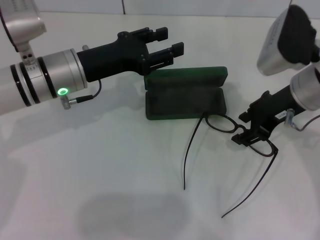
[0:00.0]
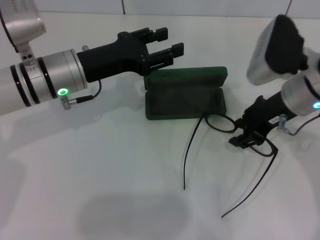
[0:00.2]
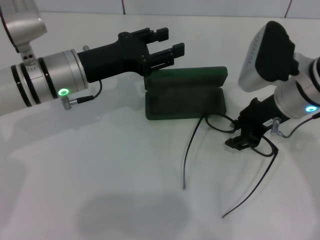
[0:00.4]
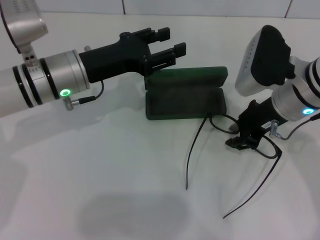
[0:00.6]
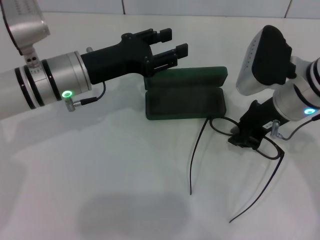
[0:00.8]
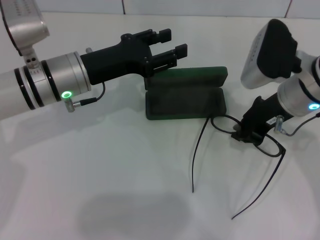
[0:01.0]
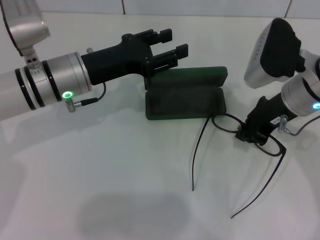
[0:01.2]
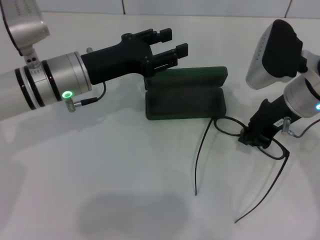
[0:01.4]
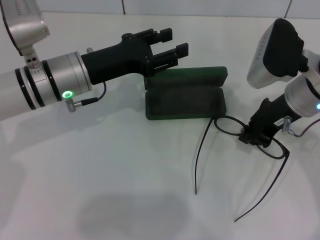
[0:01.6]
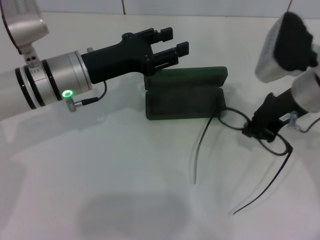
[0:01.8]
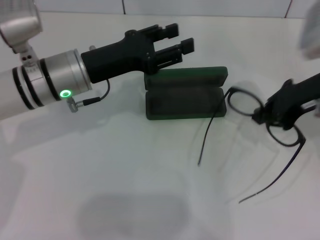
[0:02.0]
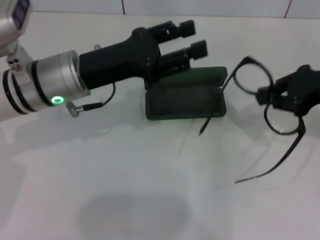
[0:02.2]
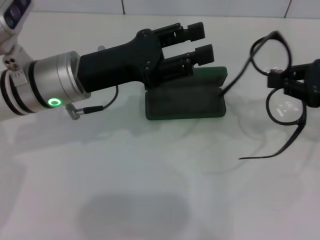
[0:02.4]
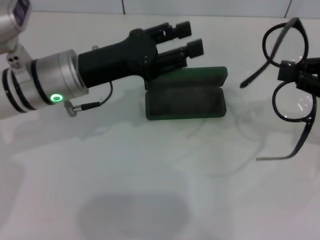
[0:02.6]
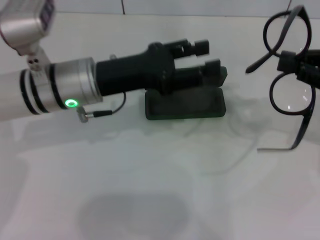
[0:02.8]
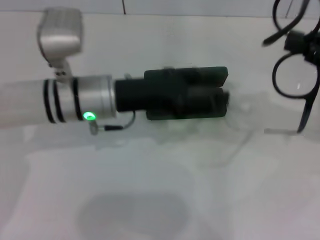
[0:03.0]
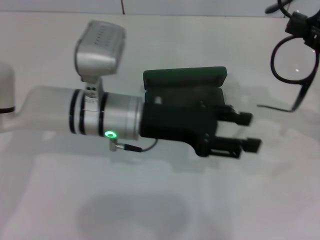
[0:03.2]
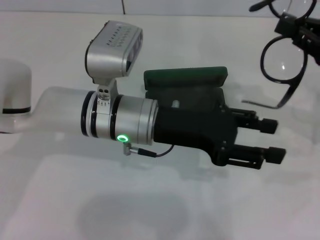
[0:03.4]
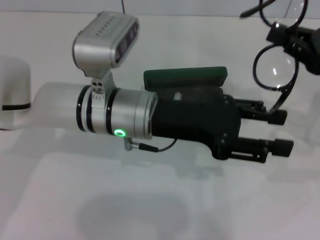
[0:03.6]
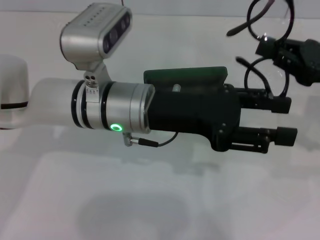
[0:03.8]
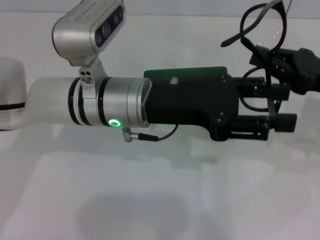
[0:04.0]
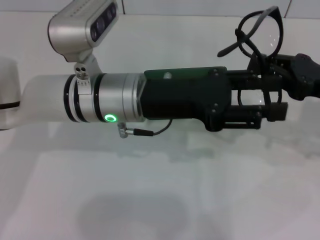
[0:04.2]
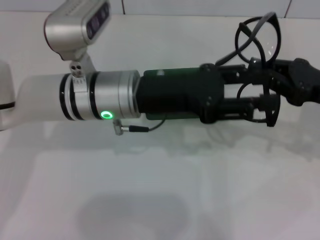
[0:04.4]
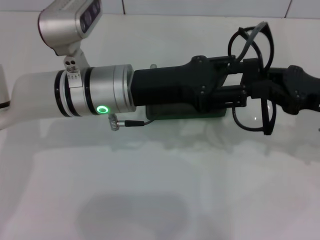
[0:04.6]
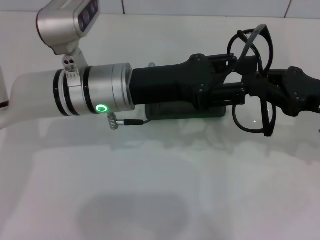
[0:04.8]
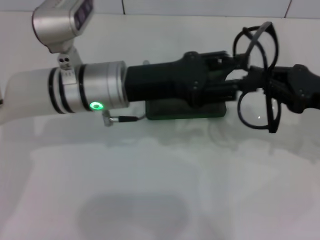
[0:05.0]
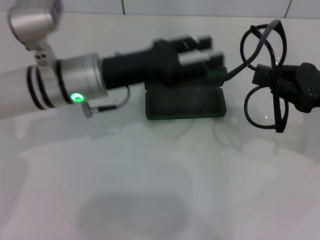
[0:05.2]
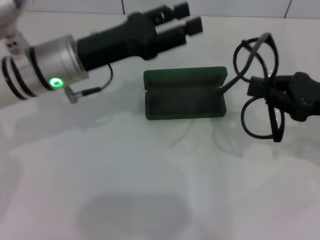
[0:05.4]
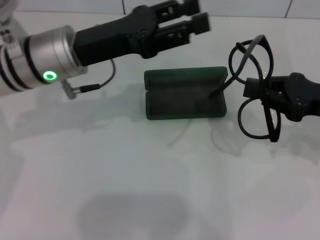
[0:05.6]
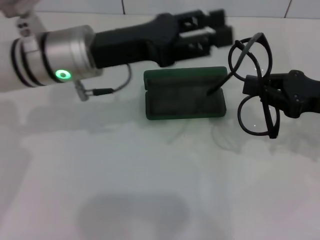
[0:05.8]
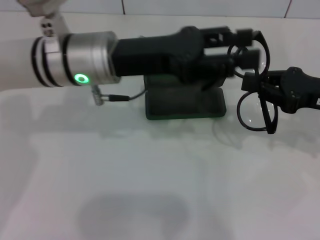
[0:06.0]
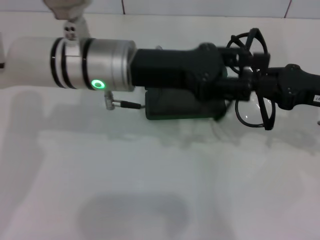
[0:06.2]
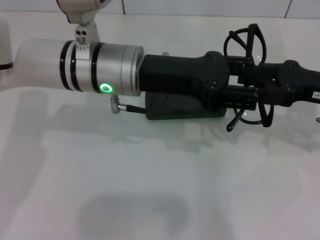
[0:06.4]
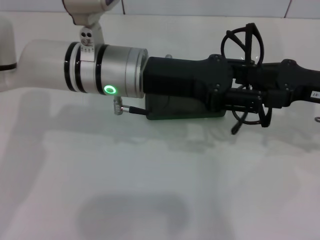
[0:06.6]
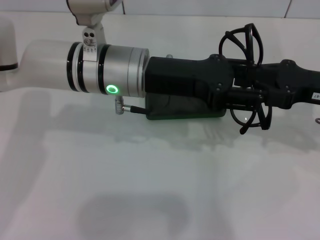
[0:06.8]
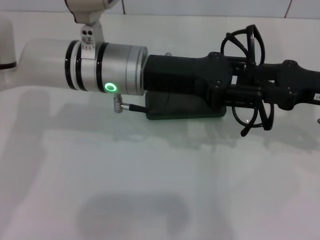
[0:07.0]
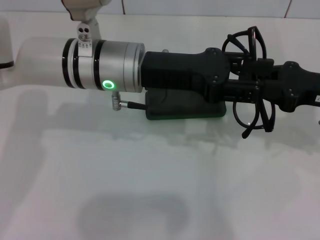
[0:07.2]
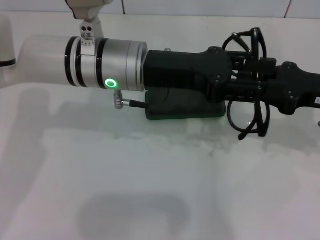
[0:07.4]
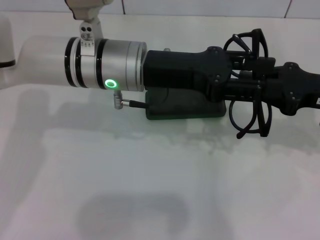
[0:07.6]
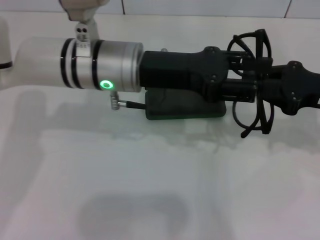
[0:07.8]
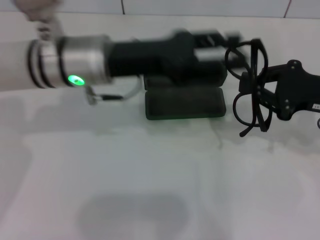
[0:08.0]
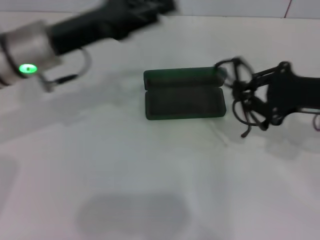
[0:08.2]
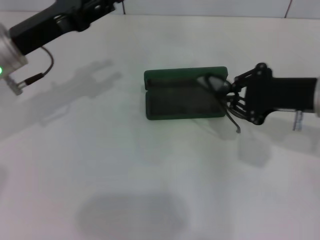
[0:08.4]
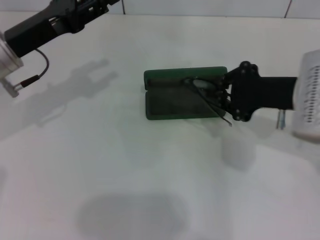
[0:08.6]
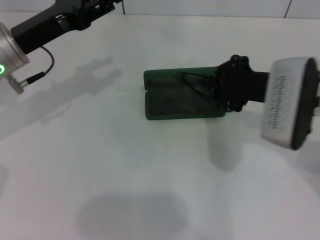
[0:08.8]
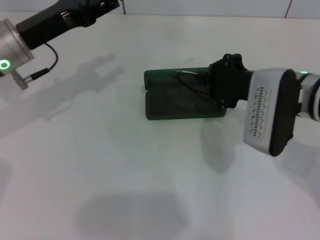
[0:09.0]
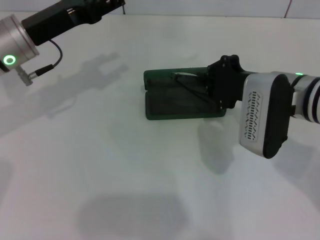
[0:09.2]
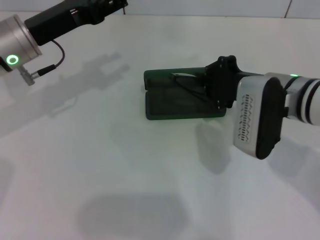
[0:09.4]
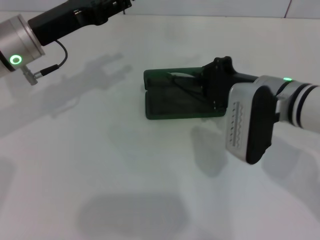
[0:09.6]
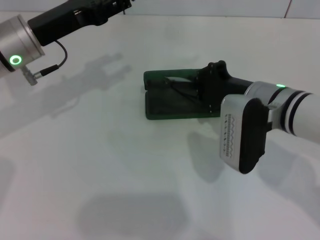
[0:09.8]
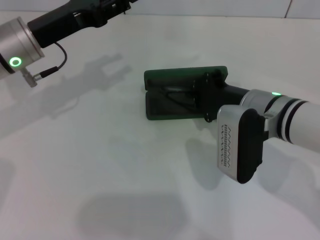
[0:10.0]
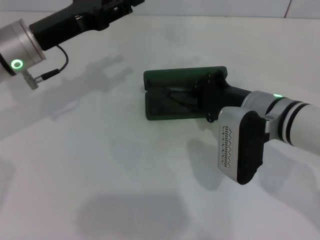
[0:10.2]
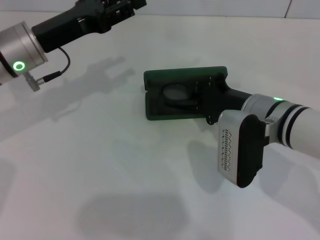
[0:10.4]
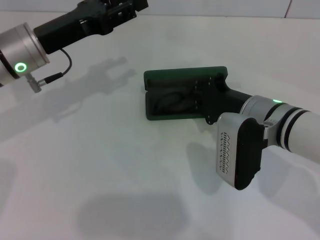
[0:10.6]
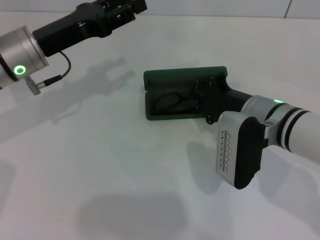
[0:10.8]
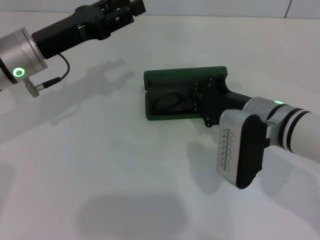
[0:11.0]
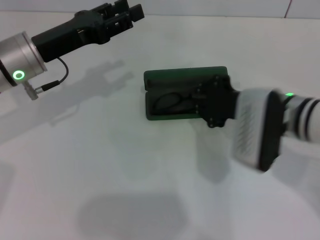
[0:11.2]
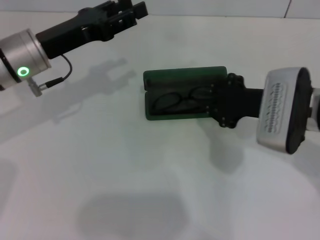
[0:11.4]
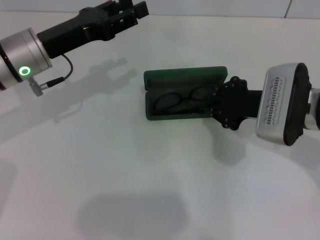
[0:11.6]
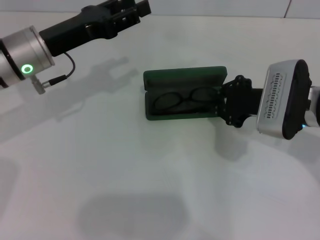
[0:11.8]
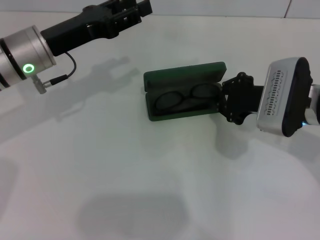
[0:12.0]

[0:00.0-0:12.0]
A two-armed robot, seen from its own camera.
Step, 1.0 to 7.4 s: Fold the frame with your left hand.
Step, 7.6 to 10.4 s: Put the glasses into the case with your right hand.
0.0 to 1.6 s: The right gripper closes up.
1.6 to 3.0 s: The right gripper goes roughly 15 cm to the right.
3.0 to 4.4 s: The right gripper shifts by about 5 cm.
6.0 to 7.6 s: There are only small adjustments of the grippers.
7.6 to 9.0 s: The two grippers go some 15 cm to the left.
9.0 to 10.4 s: The grippers make only small movements.
10.4 to 12.0 s: The right gripper heads to the right, covering about 5 cm.

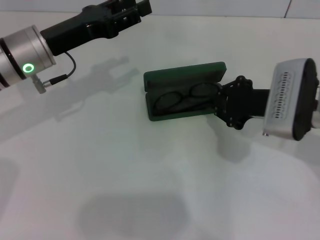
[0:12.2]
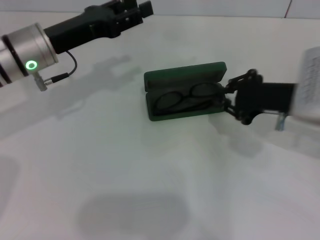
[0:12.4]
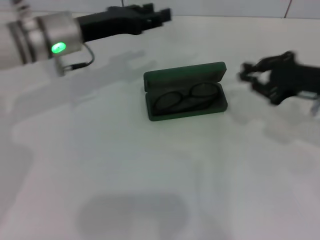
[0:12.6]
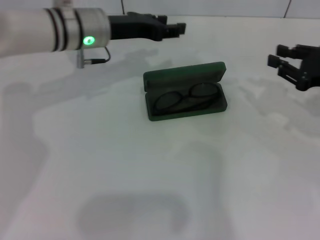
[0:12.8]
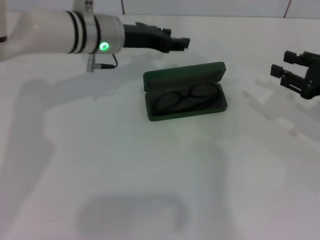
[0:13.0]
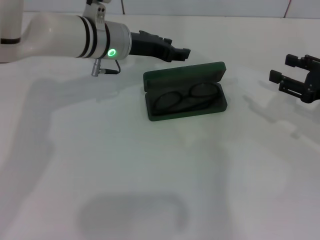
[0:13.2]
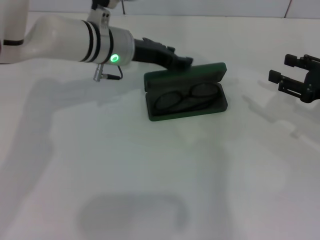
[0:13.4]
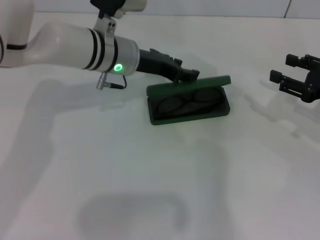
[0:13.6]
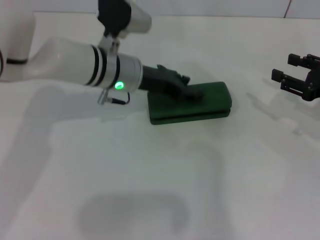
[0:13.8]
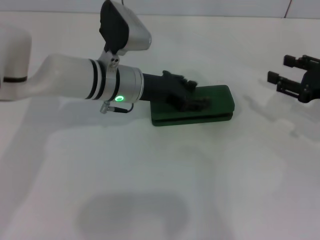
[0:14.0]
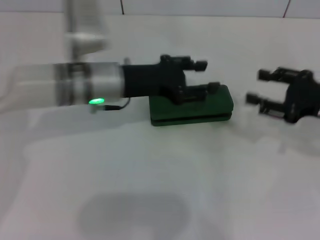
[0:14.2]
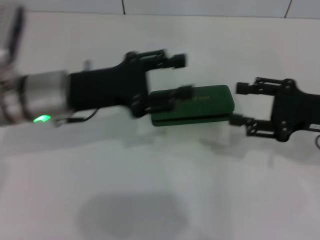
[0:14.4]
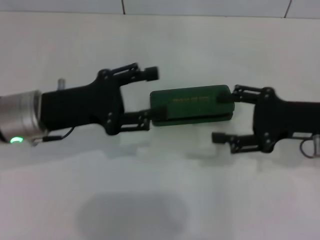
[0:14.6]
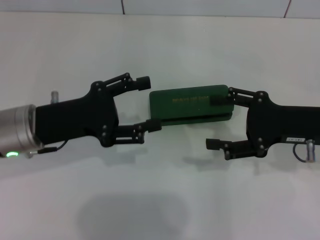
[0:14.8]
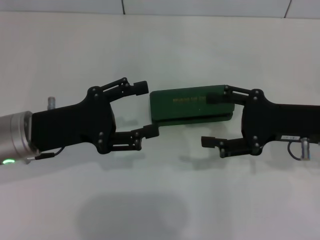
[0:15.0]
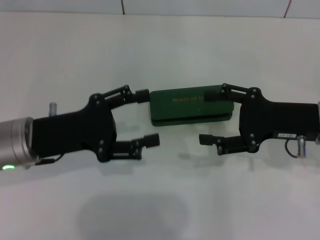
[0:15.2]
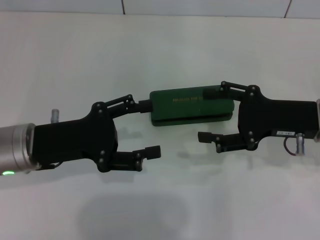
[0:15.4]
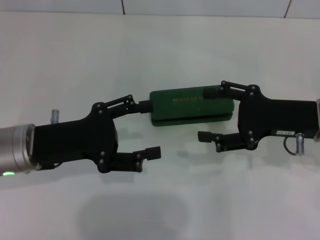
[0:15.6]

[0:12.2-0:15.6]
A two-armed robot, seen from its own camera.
Step, 12.2 to 13.8 s: Close the glasses case with your left hand.
12.2 to 13.8 s: The two grippers go roughly 10 cm to the right. The right gripper opens up.
13.8 to 15.6 s: The left gripper goes about 20 cm backward and to the left, and opens its fingers. Meanwhile the right gripper moves to the left, some 10 cm.

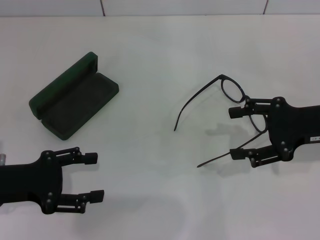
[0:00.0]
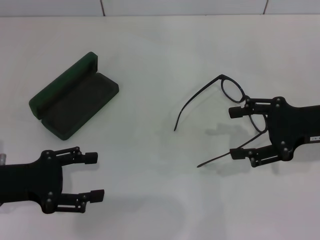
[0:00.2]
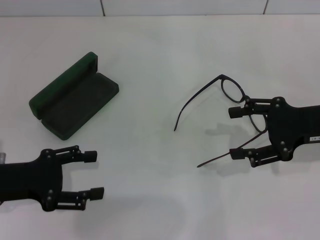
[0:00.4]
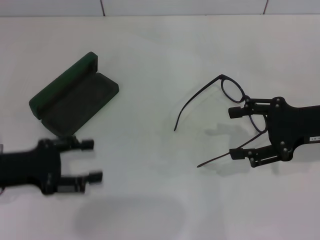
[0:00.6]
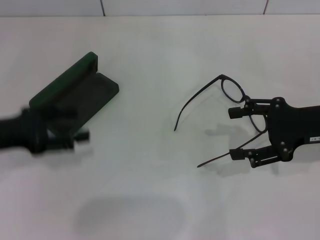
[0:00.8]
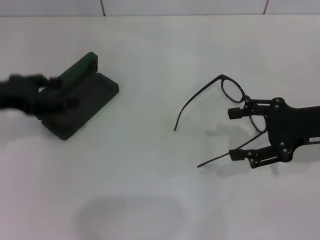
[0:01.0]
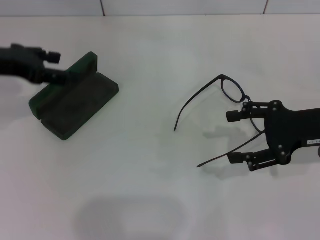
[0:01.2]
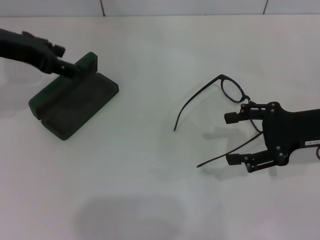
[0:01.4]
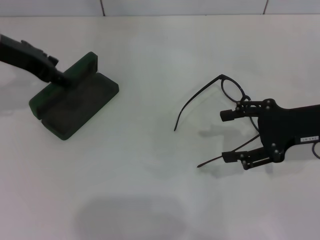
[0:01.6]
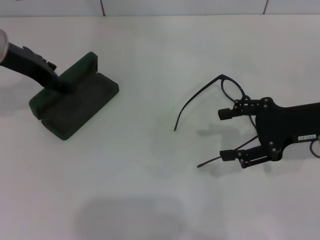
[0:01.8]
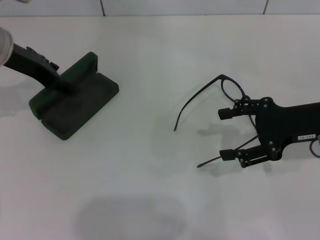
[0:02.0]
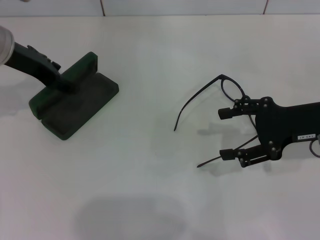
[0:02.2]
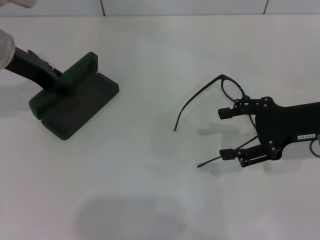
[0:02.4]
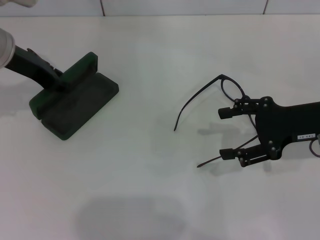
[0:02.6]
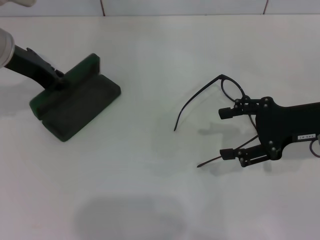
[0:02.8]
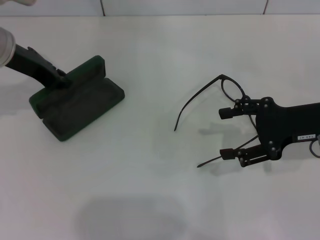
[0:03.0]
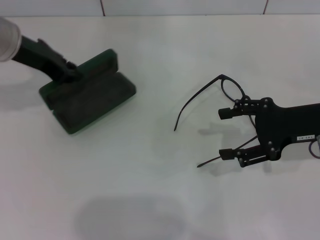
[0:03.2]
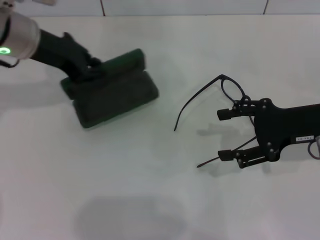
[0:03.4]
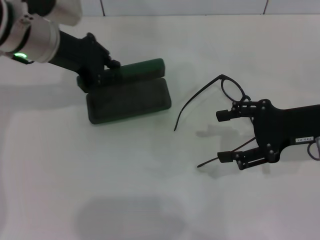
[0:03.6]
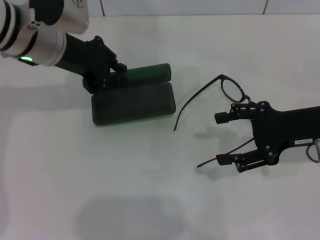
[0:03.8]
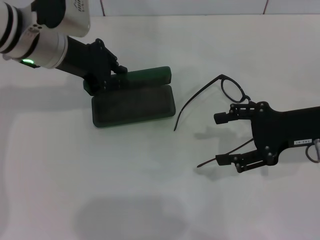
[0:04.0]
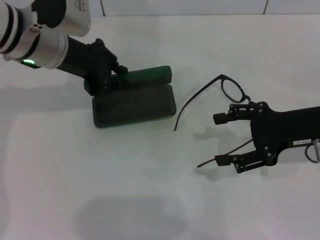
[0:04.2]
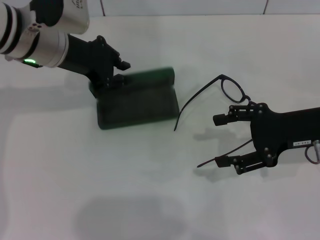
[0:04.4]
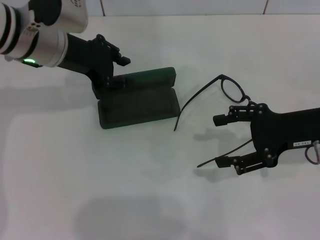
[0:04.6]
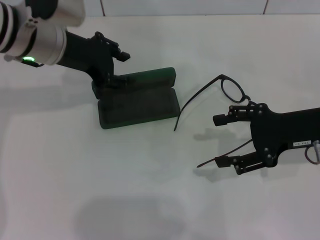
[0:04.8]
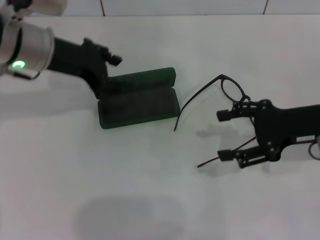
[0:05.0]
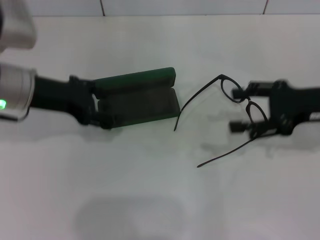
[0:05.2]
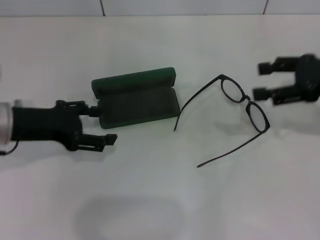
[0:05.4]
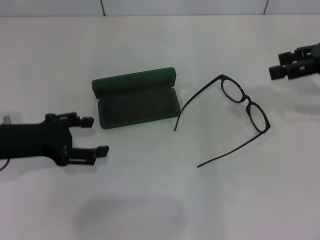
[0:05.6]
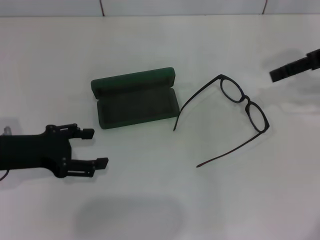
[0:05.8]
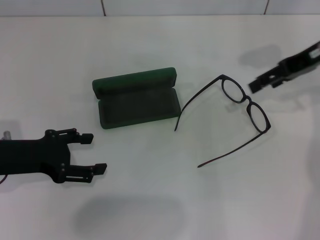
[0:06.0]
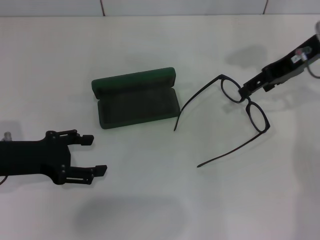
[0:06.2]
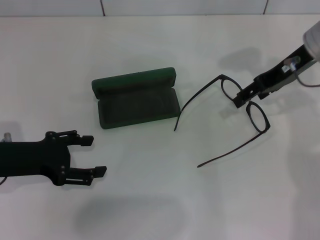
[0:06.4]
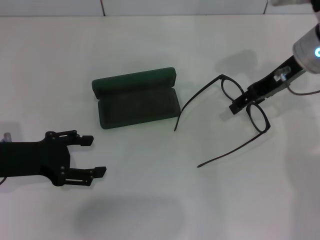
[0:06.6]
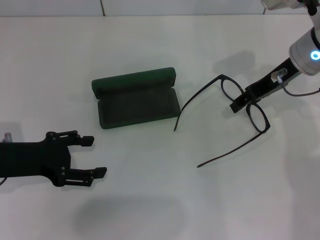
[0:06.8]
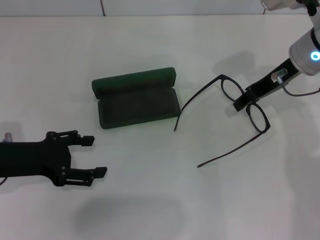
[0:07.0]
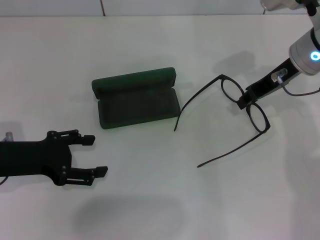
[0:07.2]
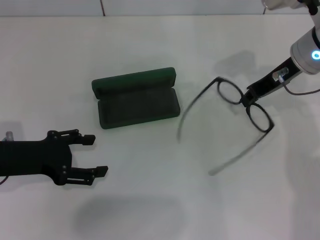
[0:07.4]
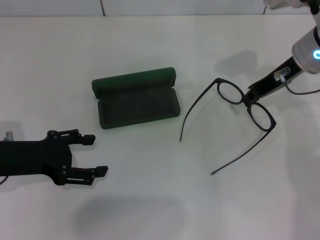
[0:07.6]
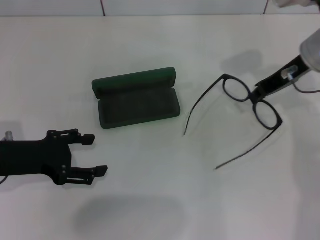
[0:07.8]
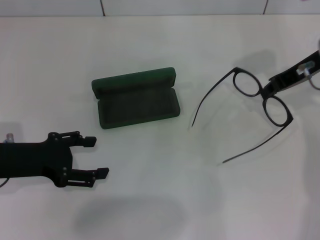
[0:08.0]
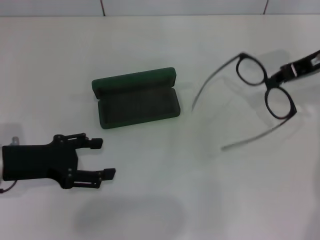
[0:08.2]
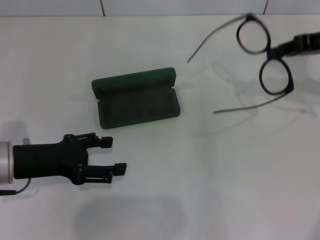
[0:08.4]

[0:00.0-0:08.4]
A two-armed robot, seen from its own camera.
Step, 0.0 to 2.8 s: Grab the glasses case with your left hand.
Step, 3.0 to 5.0 s: Place the glasses case in the center of the table with your left hand.
Step, 5.2 to 7.4 s: Grab the eyeglass frame with your right hand.
0.0 to 1.4 s: The left gripper heads forward and upward, covering some 20 cm.
1.4 to 2.8 s: The left gripper closes its fingers.
2.8 to 4.2 s: The left gripper travels to the right by approximately 5 cm.
4.2 to 5.6 s: The left gripper heads backward, to the left and downward, covering about 15 cm, and opens up, while the right gripper is displaced upward, to the right and forward by about 15 cm.
5.6 to 7.0 s: The right gripper moves to the left and downward, about 10 cm.
7.0 to 8.4 s: The right gripper goes roughly 10 cm to the right, and closes its fingers.
